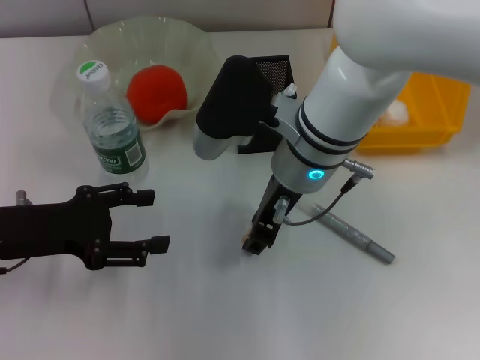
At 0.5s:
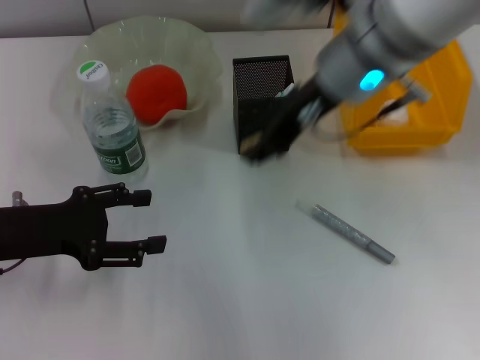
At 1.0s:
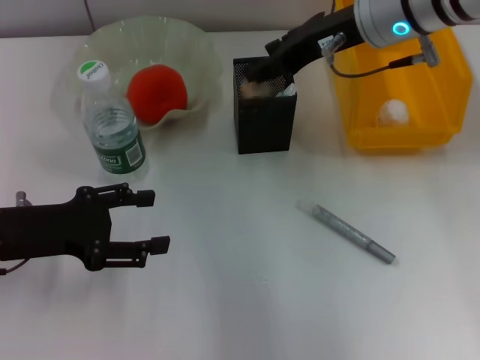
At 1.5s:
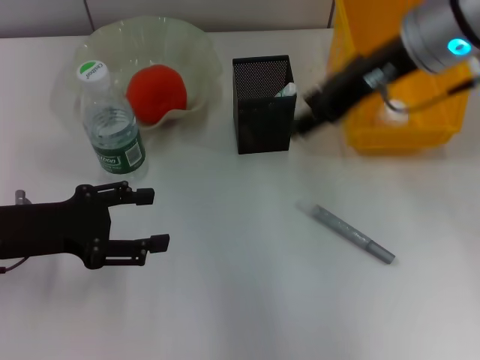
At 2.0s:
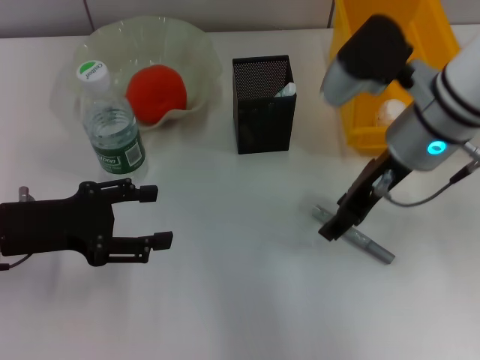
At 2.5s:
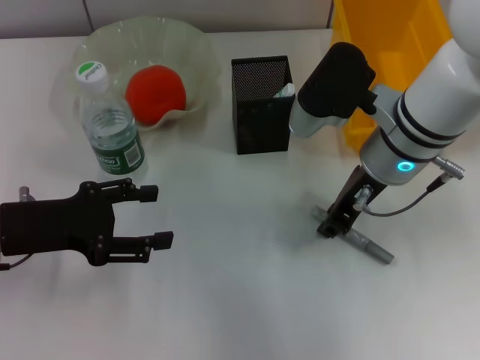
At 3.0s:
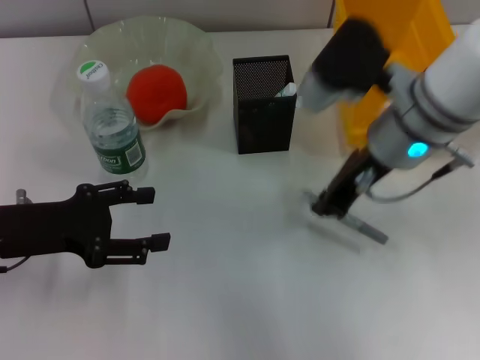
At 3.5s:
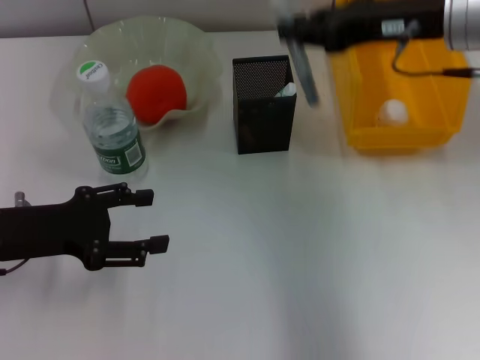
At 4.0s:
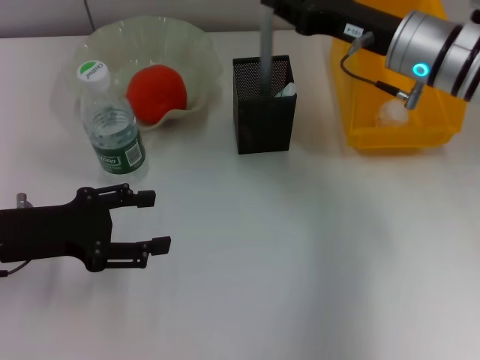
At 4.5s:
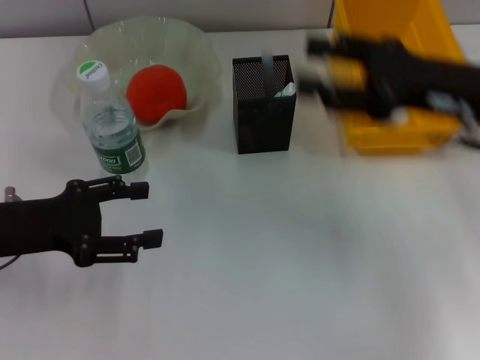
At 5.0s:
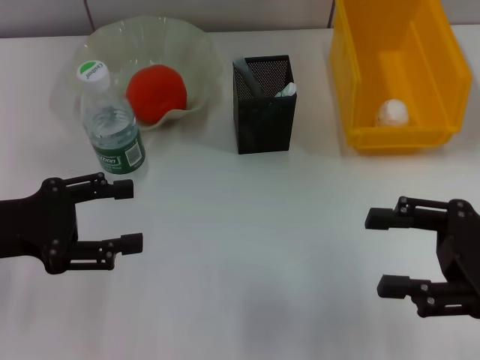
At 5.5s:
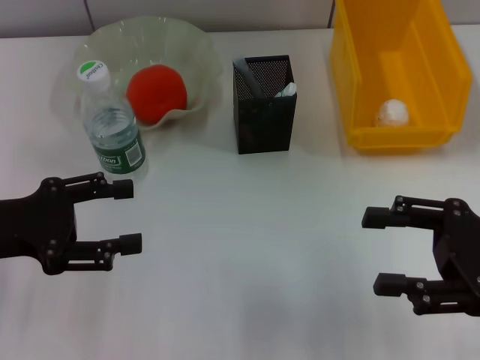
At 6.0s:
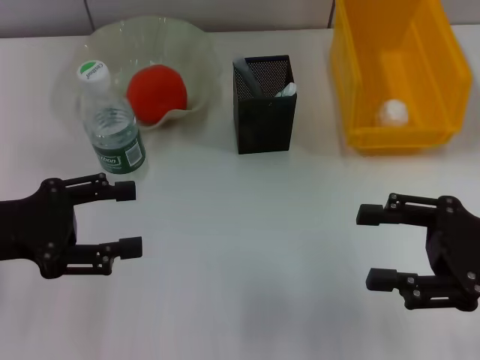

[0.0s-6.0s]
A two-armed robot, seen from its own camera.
Step, 0.5s to 1.0s: Put the eraser into the pen holder with the right hand.
Step, 1.5s to 2.5s: Grab the gray glue with the right hand.
Step, 3.0s to 4.0s: Place the gray glue into the pen holder with the right hand.
0.0s to 2.0s: The right gripper moves to the right, about 10 cm.
2.0s to 4.0s: The right gripper travels upward and back again, approximately 10 cm each way, and closes its fingers.
4.0s to 6.0s: The right gripper travels backward and to the right by approximately 20 cm, and opens up.
